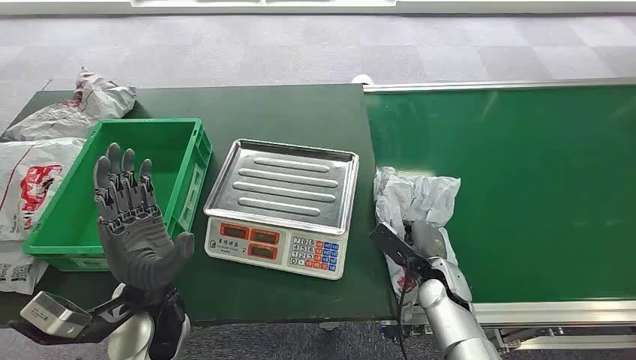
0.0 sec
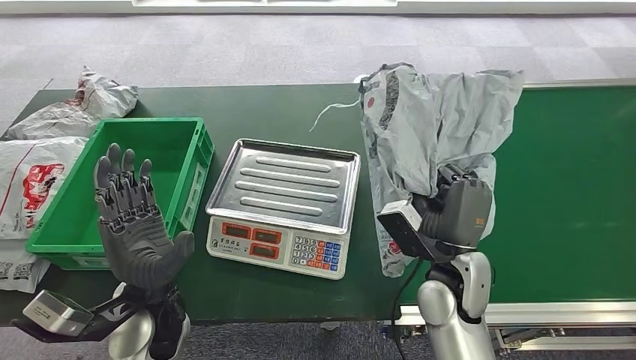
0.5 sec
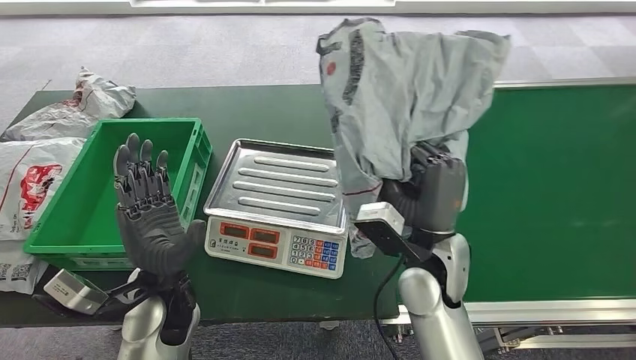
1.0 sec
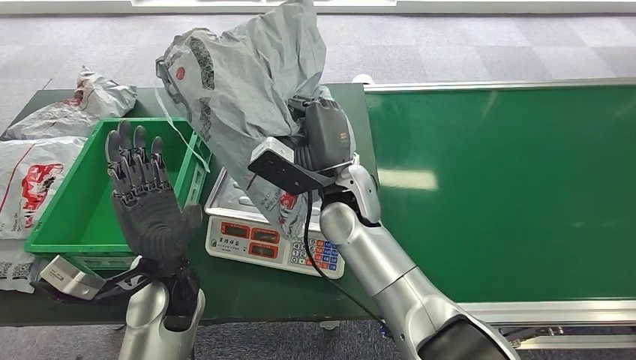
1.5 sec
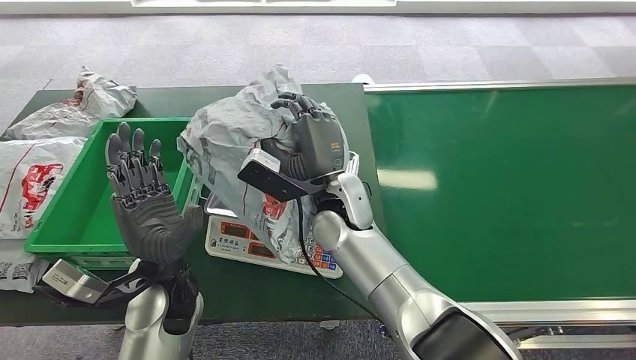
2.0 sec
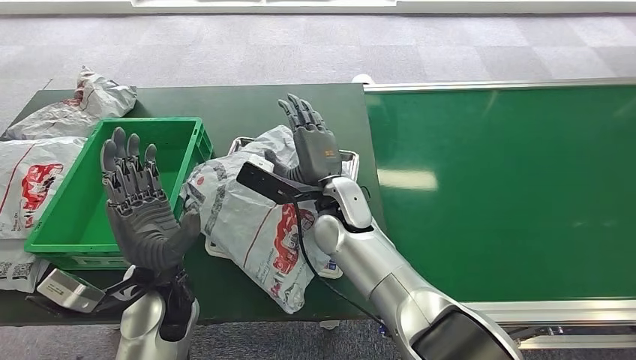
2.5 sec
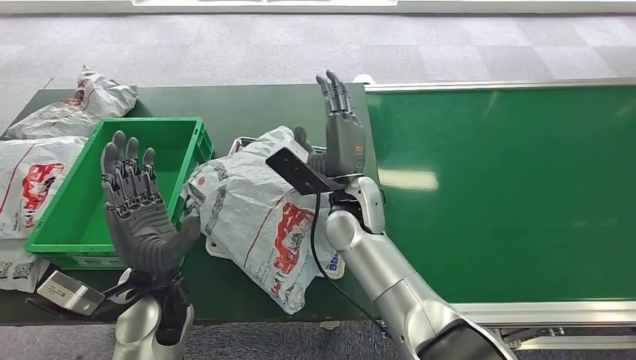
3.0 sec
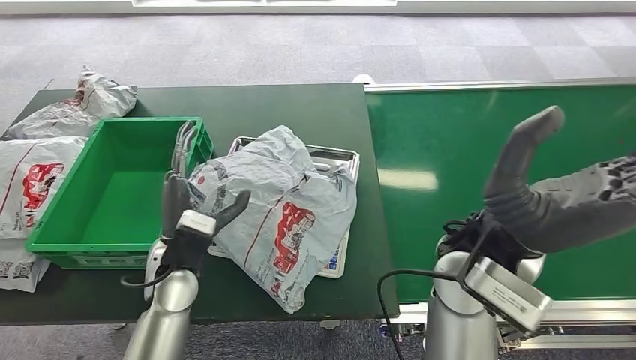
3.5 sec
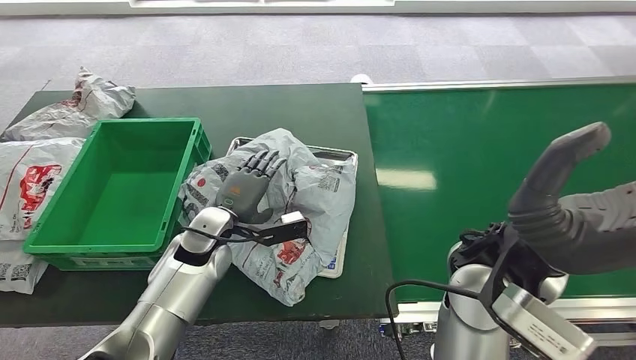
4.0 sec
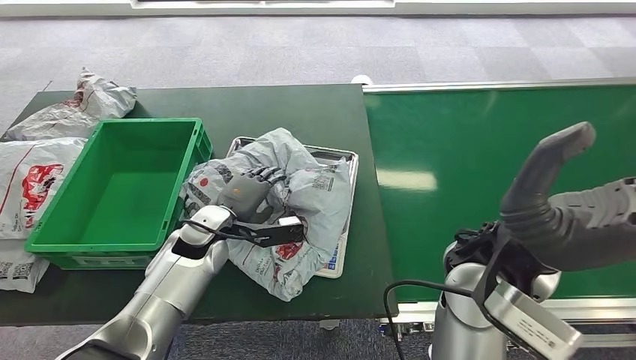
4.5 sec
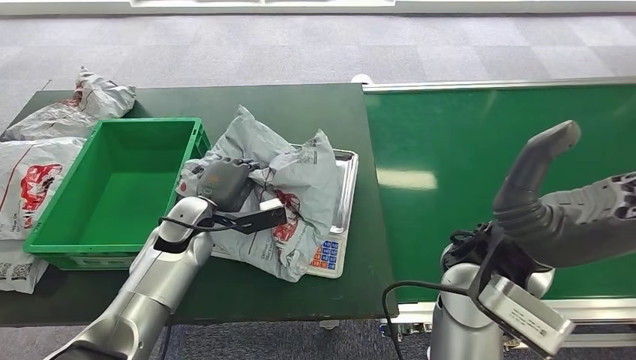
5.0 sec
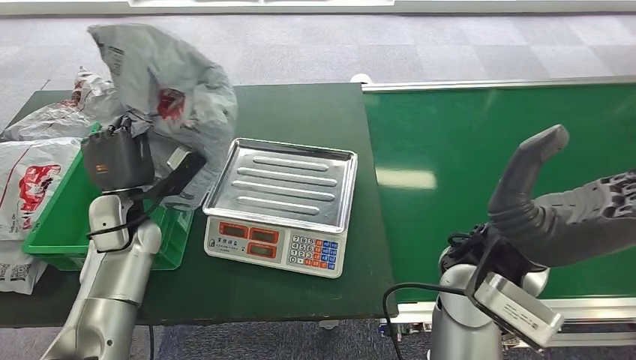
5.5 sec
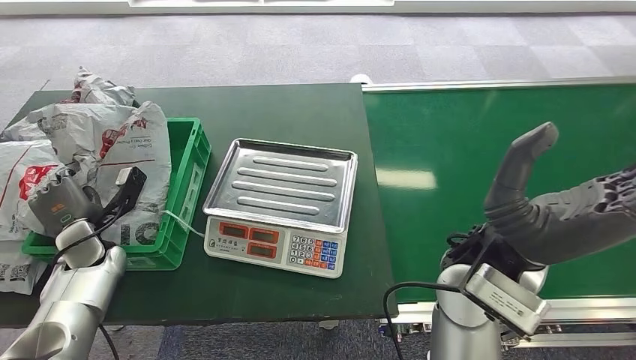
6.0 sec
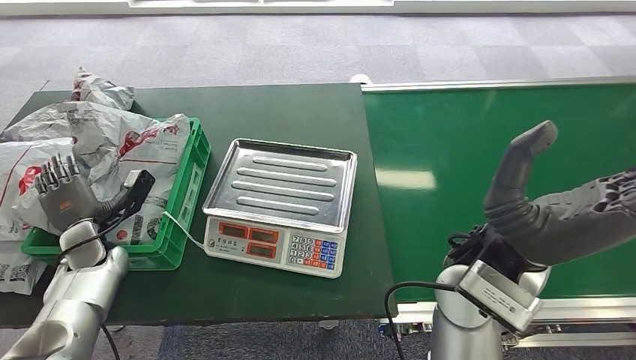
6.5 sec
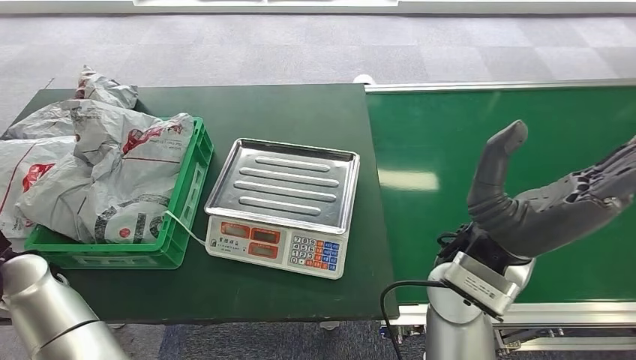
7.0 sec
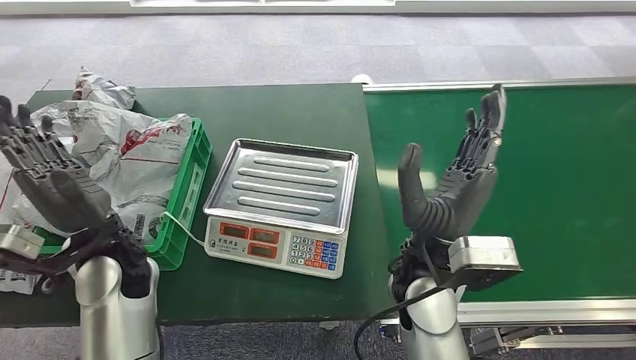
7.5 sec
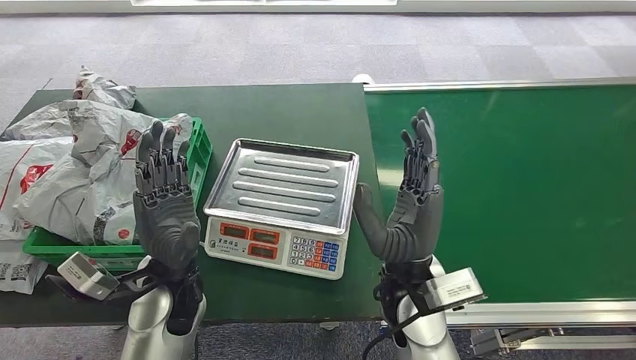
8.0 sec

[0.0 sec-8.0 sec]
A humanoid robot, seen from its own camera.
Step, 0.0 sec to 1.0 sec: Pick up the package from the conveyor belt.
Step, 1.5 sec to 3.0 sec: Place the package onto the inbound machine.
Step, 4.0 sec to 5.5 sec: Pick up the package from the inbound machine.
Step, 6.0 sec to 8.0 sec: Place the package into the parcel locker.
